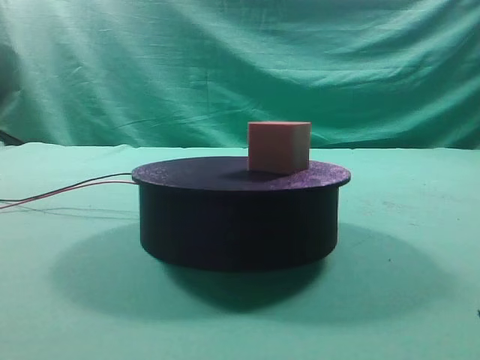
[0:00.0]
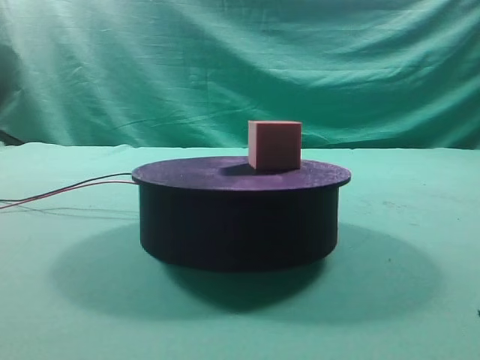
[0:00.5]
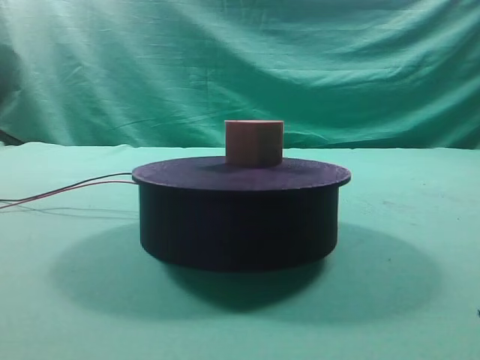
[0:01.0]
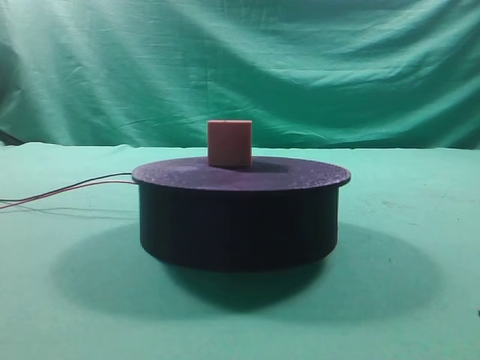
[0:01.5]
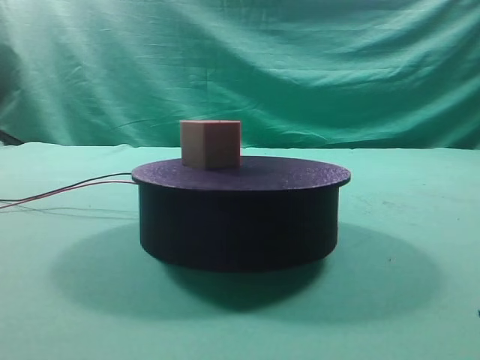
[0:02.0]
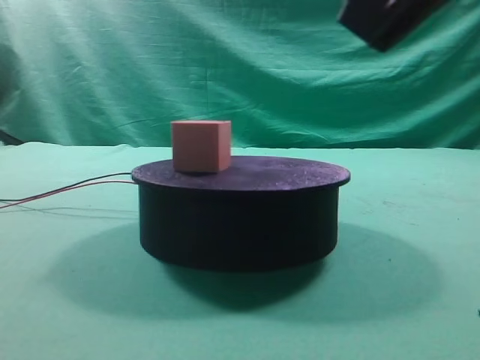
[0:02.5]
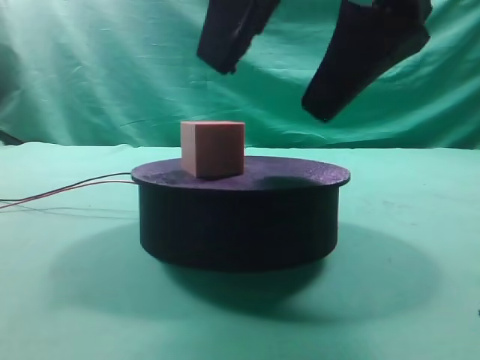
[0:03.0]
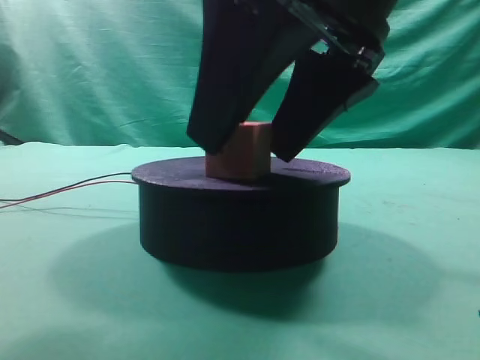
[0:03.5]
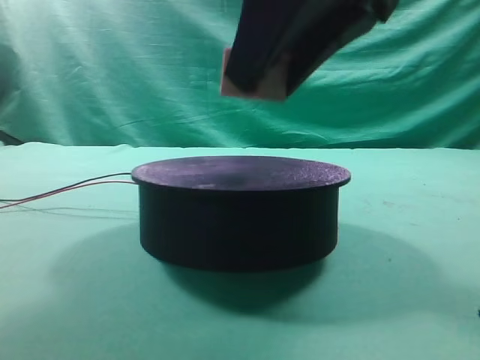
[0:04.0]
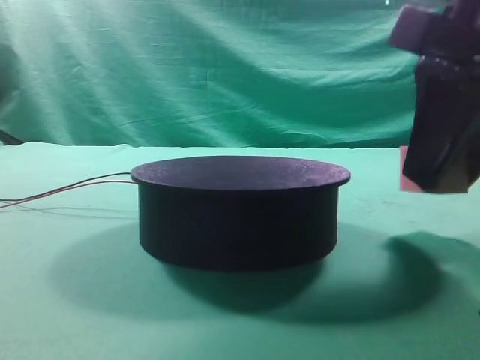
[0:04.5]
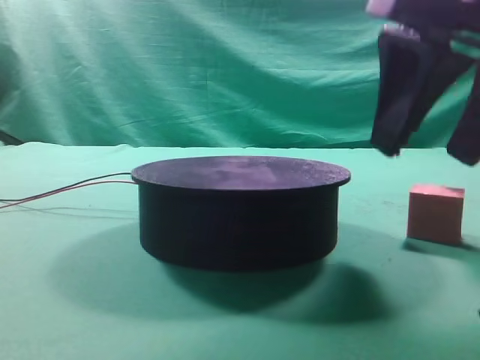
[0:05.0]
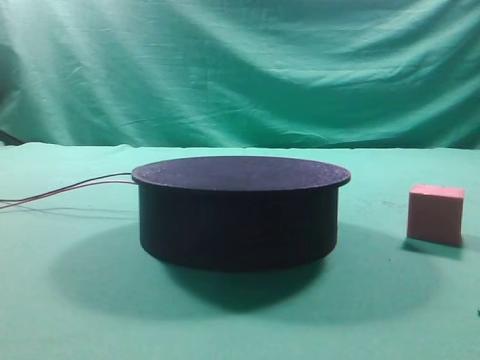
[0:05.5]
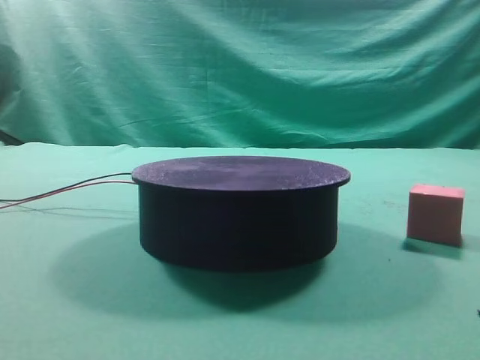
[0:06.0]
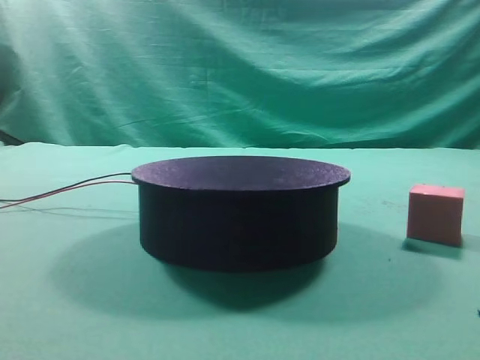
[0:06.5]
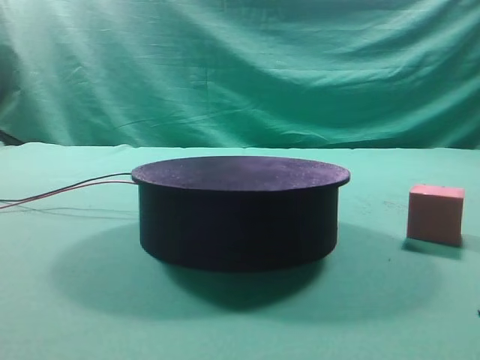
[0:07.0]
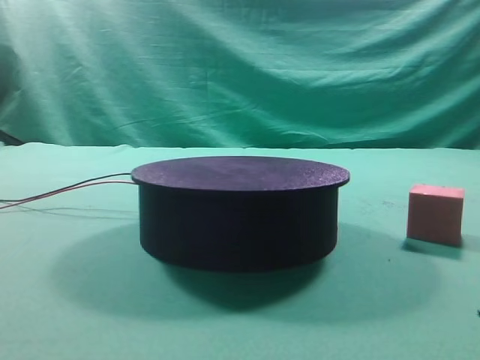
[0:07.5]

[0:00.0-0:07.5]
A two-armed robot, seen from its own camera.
Task of the whole recording: grasp the rotating cube-shaped block on the turntable and place it on the table.
Step, 0:00.0 to 0:04.0: Grasp the rotating cube-shaped block on the turntable.
Step, 0:04.5 to 0:05.0: Place the cube on the desk.

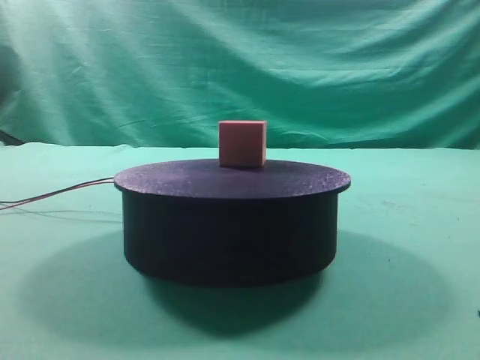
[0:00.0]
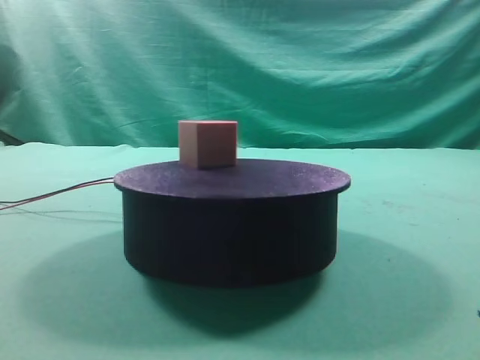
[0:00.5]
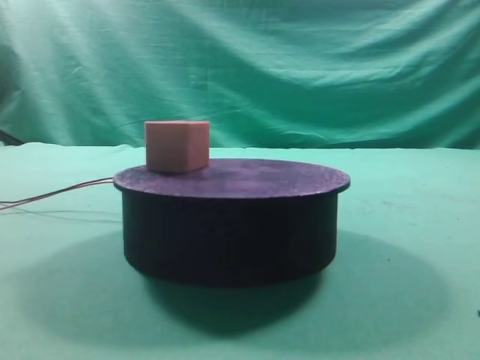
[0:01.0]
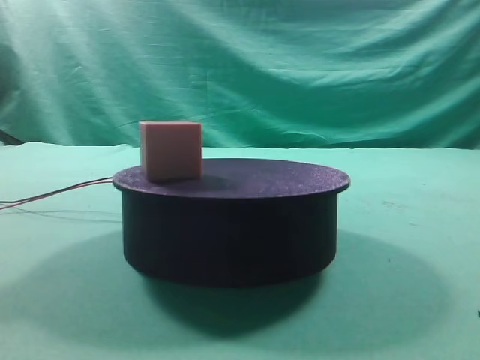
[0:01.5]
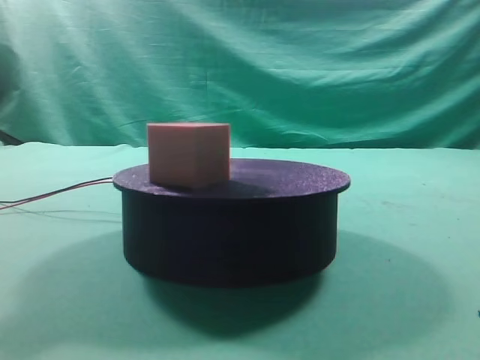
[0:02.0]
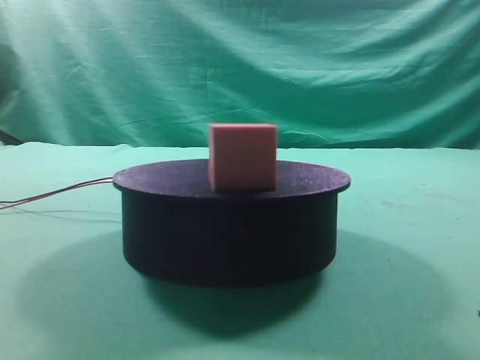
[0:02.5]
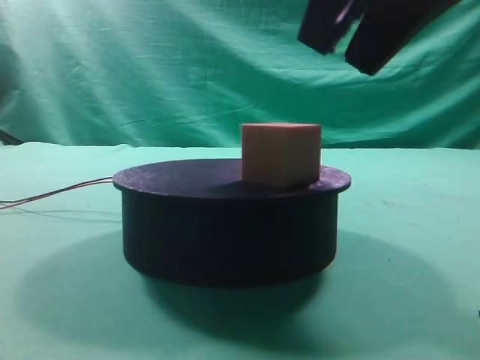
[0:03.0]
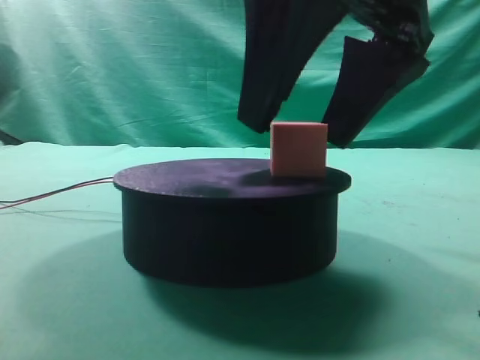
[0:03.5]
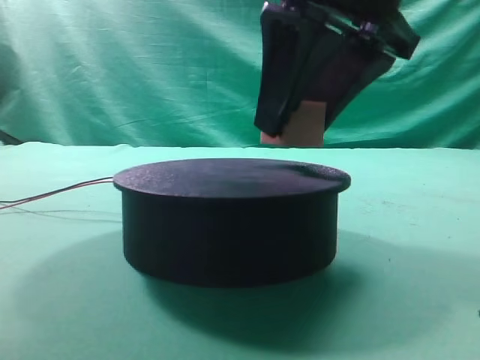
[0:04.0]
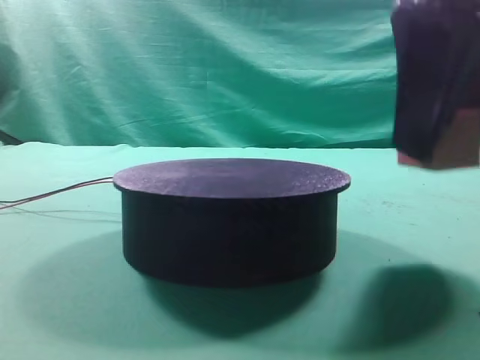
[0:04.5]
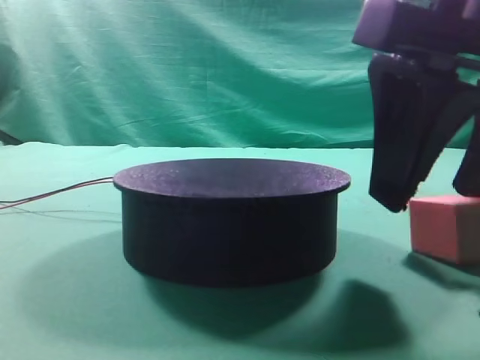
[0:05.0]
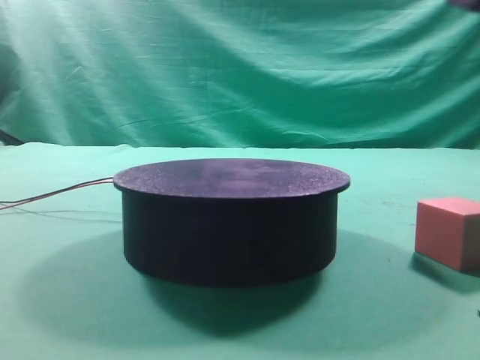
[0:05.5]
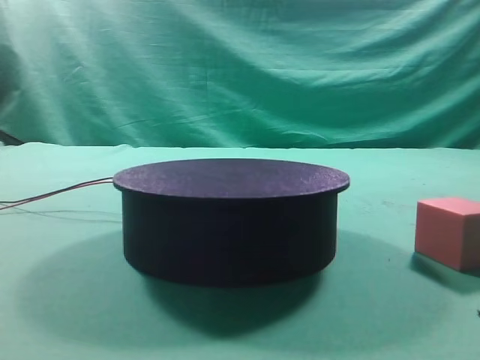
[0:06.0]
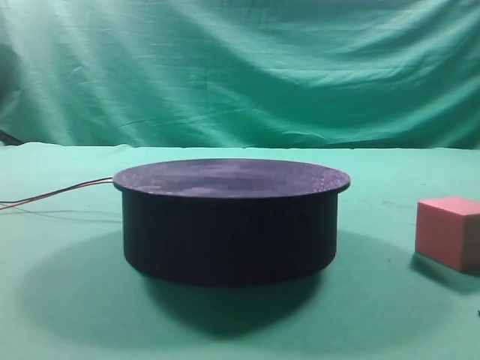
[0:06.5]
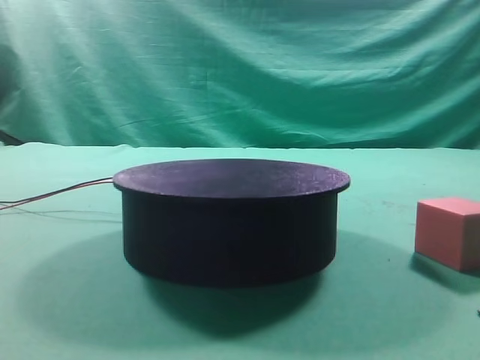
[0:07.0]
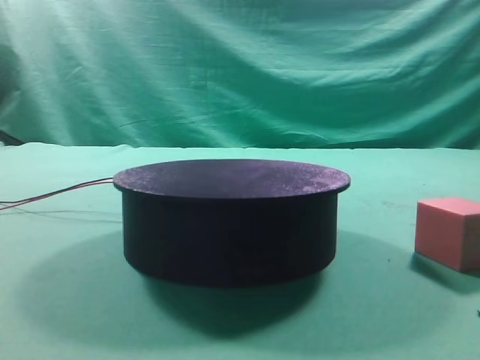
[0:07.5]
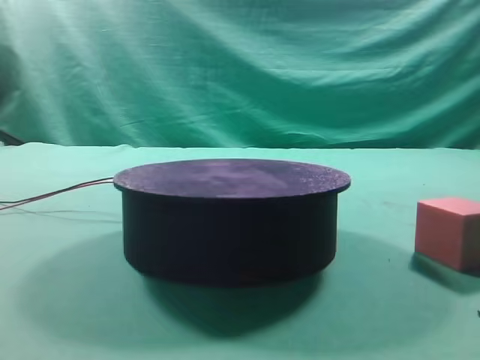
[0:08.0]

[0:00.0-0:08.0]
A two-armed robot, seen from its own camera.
Task of the whole recording: grasp the rotating cube-shaped block on the turntable and place it on the table.
Step, 0:00.0 to 0:04.0: Grasp the rotating cube-shaped block on the turntable.
Step, 0:04.5 to 0:05.0: Place the cube on the desk.
